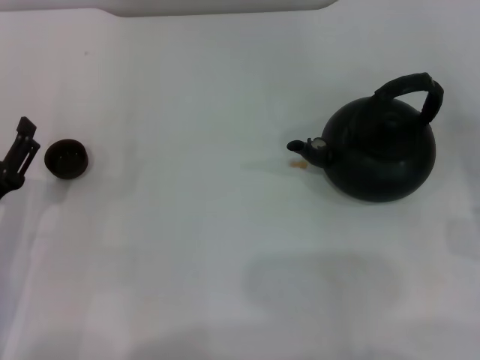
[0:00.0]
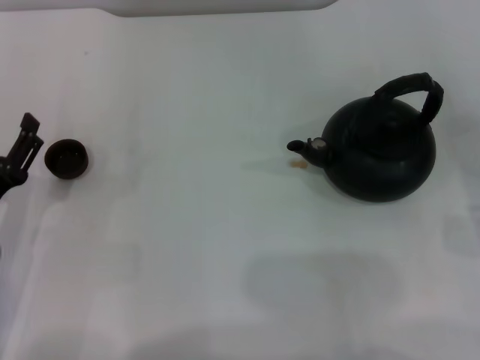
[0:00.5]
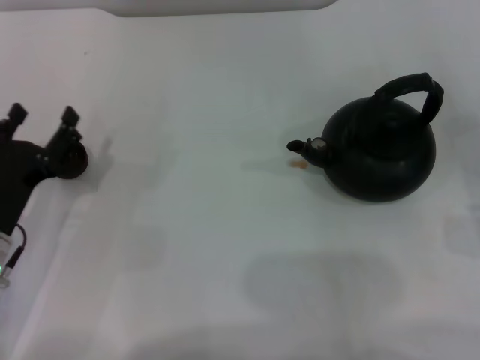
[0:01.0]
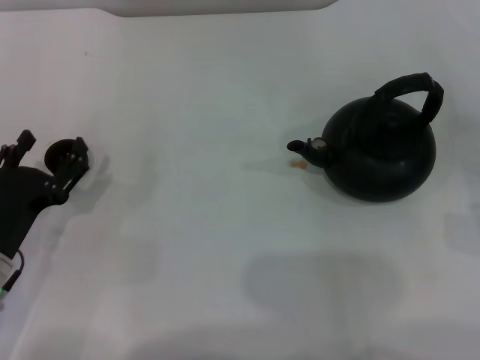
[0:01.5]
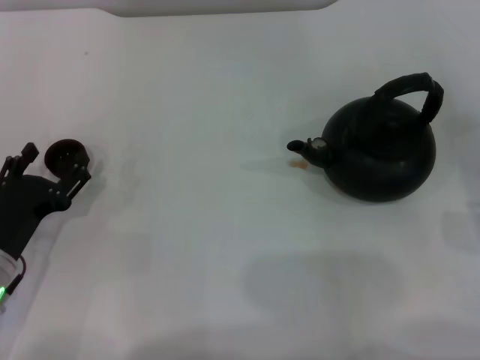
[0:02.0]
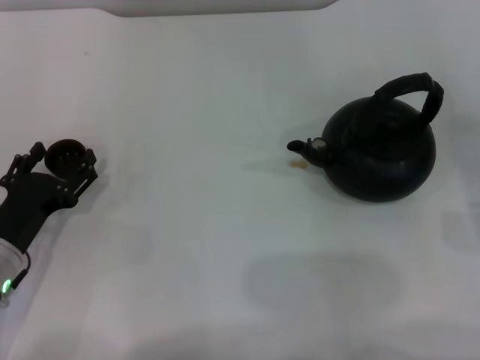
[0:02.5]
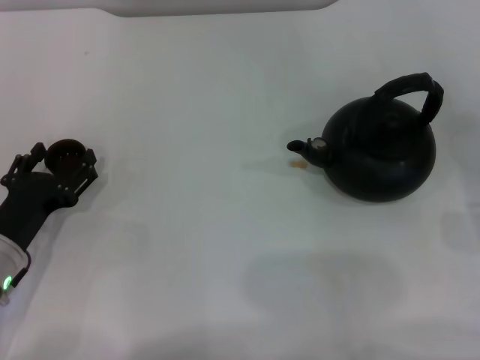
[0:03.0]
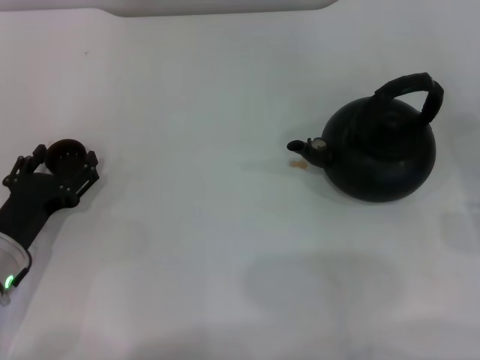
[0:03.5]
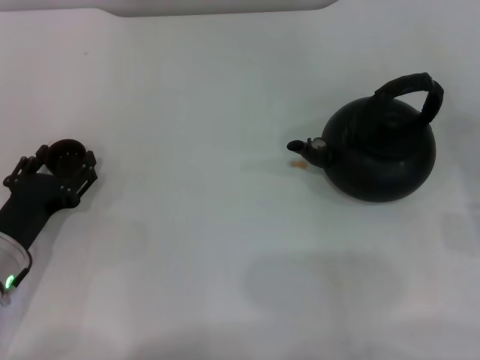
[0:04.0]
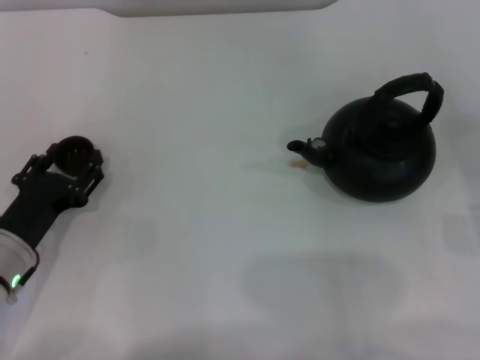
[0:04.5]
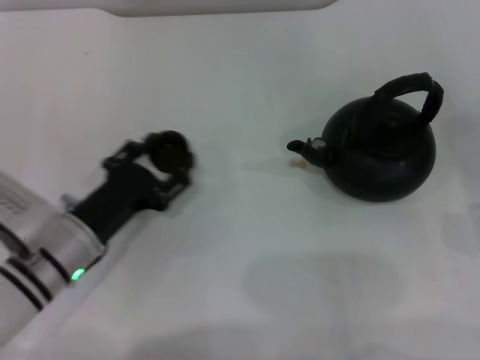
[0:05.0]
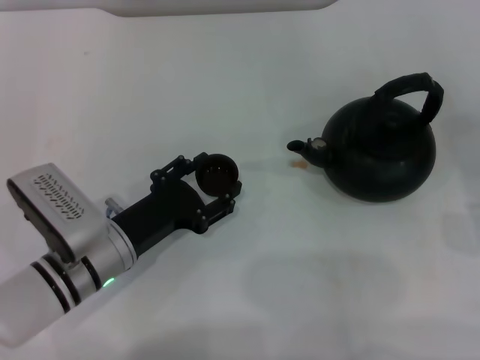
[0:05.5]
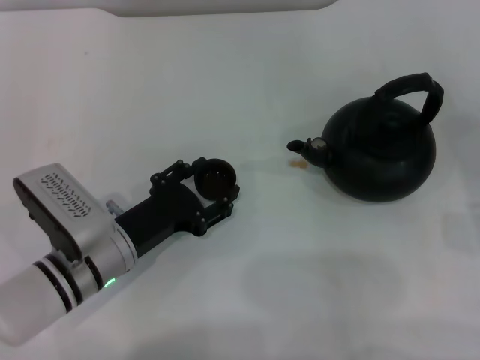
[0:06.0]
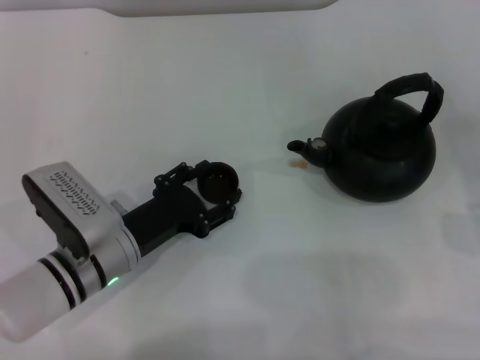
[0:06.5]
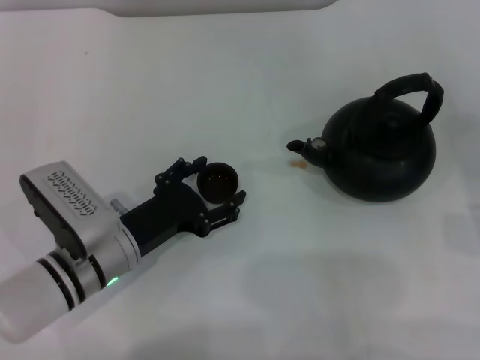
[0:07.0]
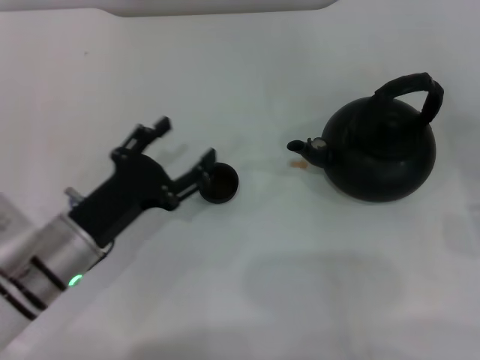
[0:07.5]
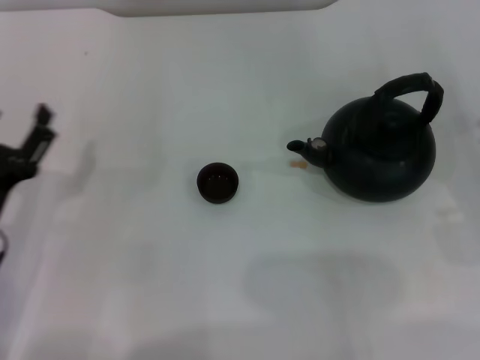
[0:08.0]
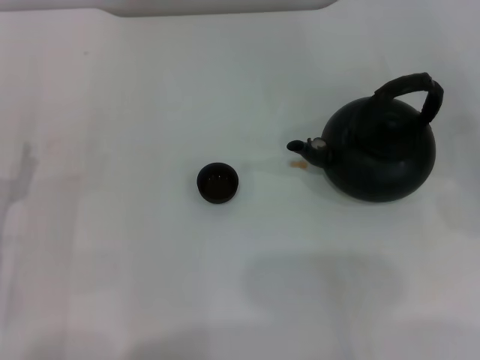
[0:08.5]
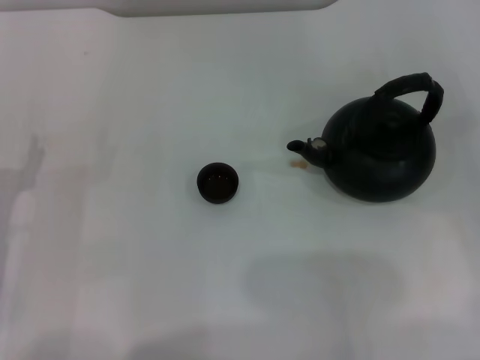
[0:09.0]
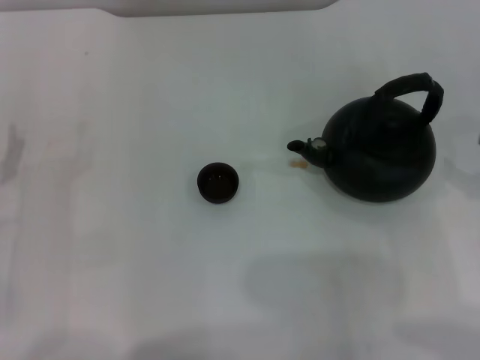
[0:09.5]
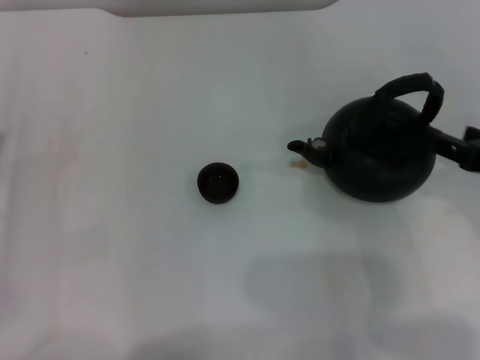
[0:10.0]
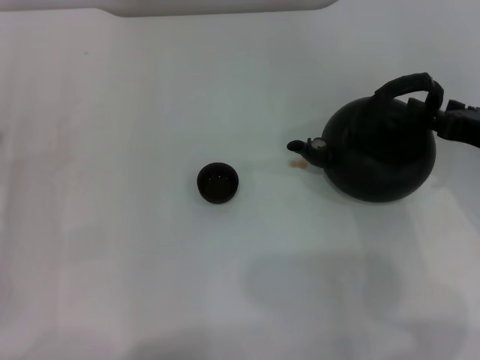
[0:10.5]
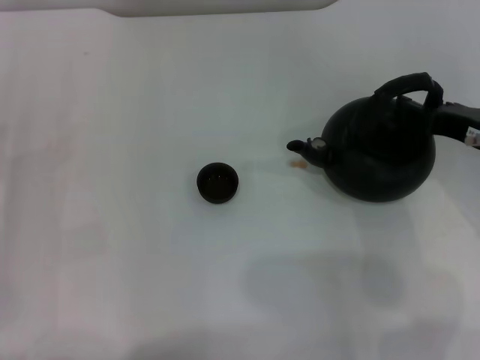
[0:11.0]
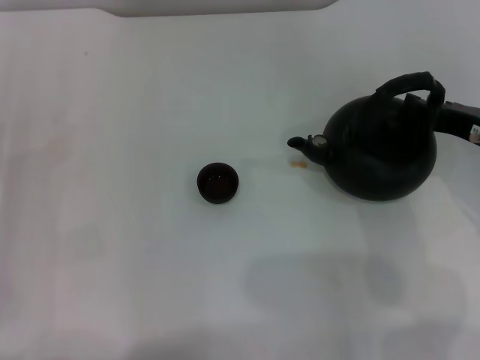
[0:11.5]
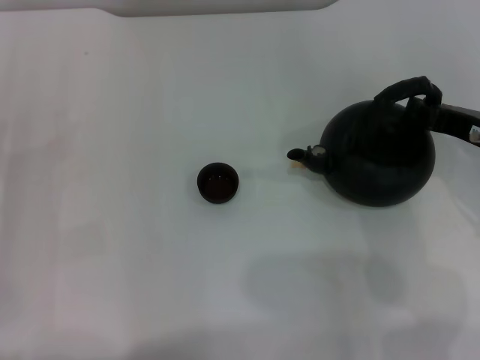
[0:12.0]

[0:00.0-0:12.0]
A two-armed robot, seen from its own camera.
Task of the whole recording: Grasp the handle of the teapot with one hand and pour tea into the teacup.
Step, 0:00.0 to 0:04.5: Pick up the teacup with the left gripper.
Step, 0:05.0 to 0:07.0: Place the teacup in the center of view with the left gripper.
0:00.0 to 0:02.0: The grippers stay close to where they were, moving slightly.
0:02.0 to 0:04.0: The left gripper closes up.
0:04.0 to 0:06.0: The left gripper shifts roughly 10 cm to the right, and closes.
0:06.0 to 0:08.0: The left gripper is displaced to the left by approximately 10 cm, and opens its fingers.
0:08.0 to 0:10.0: The right gripper shifts roughly 15 cm upward and to the left; the left gripper travels to the left by about 5 cm.
0:10.0 to 0:12.0: The right gripper travels forward by roughly 5 cm, and closes up.

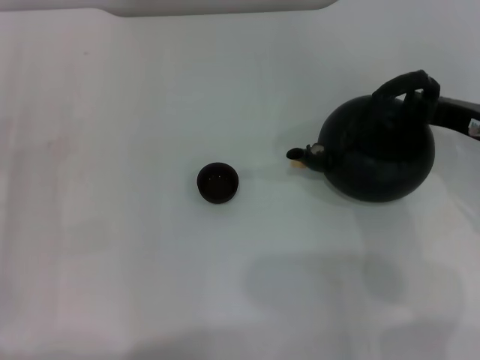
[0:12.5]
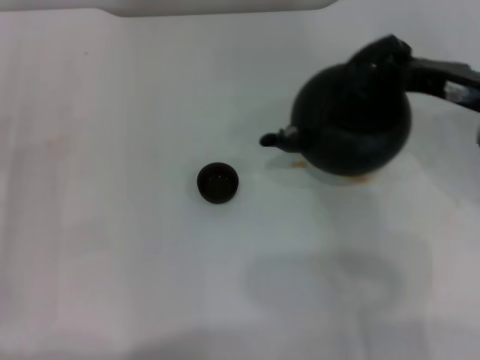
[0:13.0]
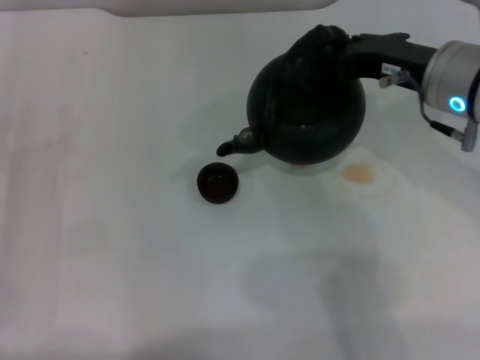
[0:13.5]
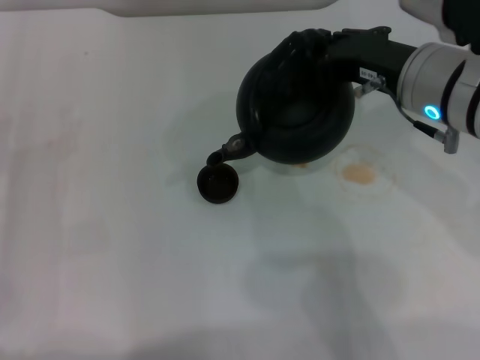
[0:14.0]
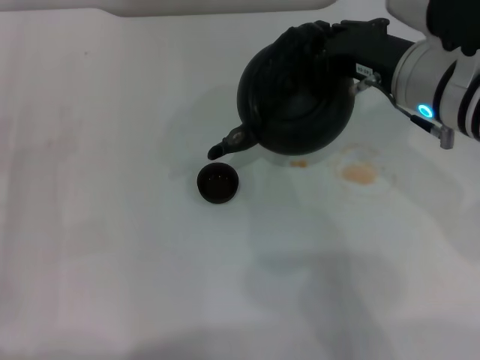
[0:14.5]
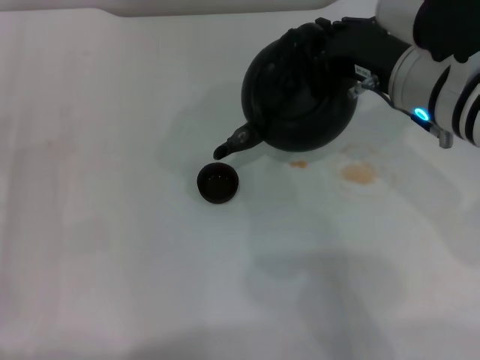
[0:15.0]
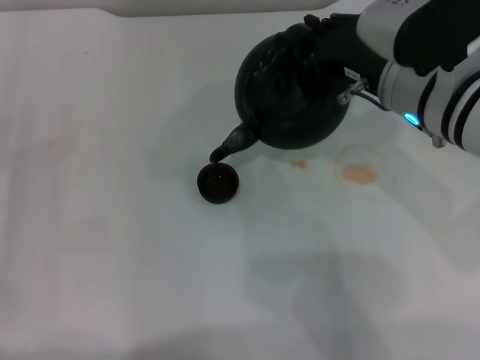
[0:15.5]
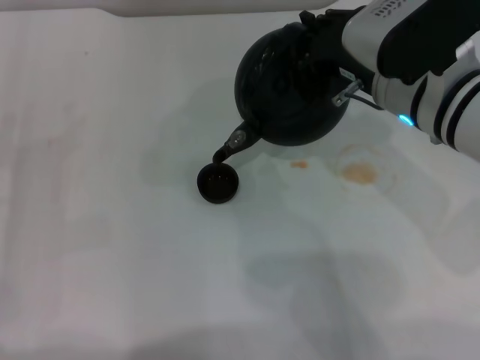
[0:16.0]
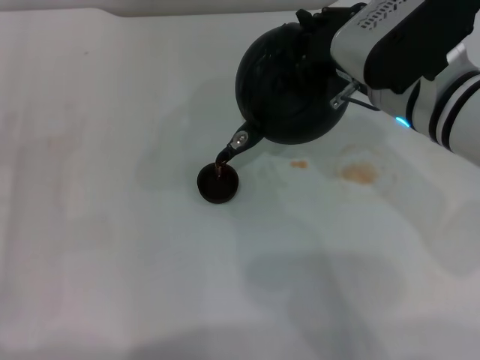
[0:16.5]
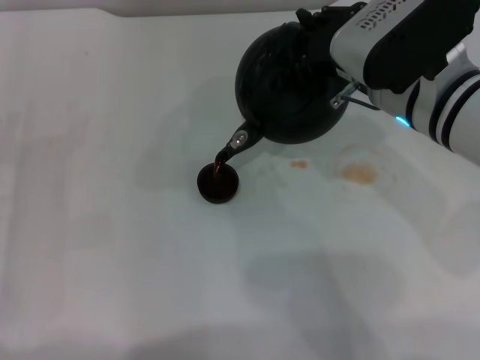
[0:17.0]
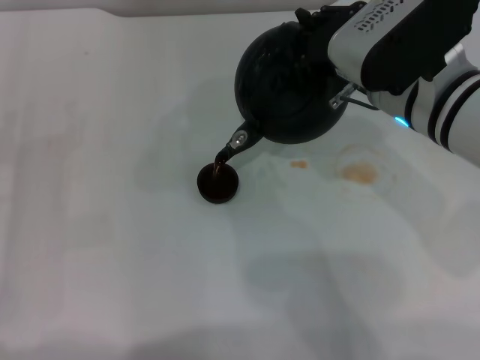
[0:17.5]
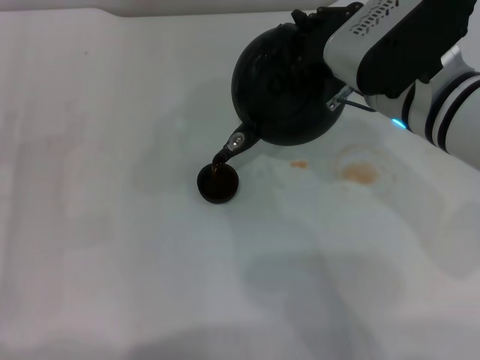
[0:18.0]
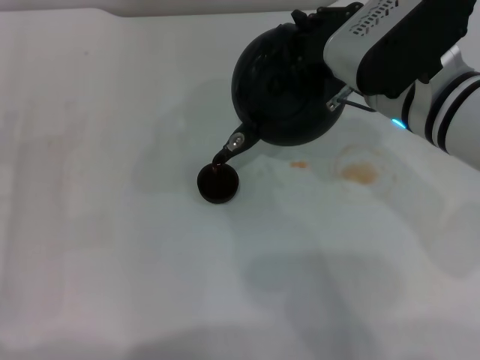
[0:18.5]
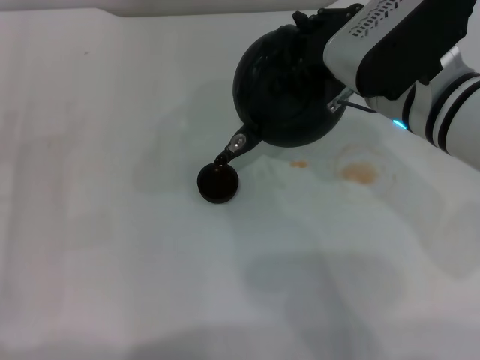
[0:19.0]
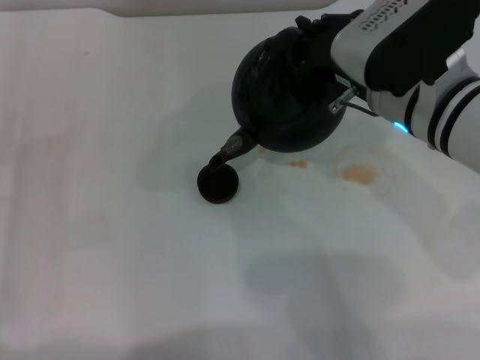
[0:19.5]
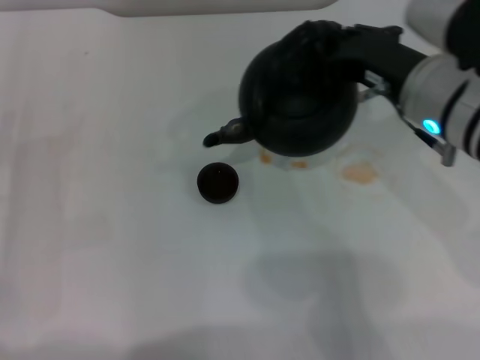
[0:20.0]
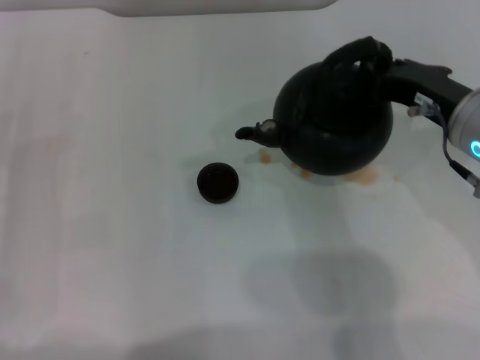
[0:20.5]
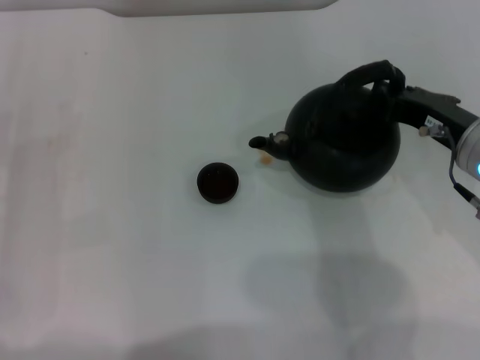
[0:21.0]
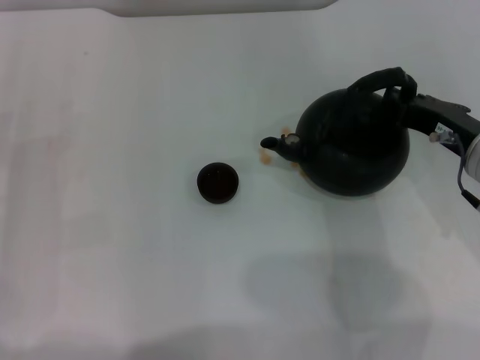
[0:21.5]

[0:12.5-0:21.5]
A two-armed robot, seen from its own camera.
Task of the whole recording: Grasp the handle of the teapot with one hand and pour tea into the teacup.
Step, 0:13.5 to 0:19.5: Pour tea into the teacup with the right gripper.
0:12.5 to 0:14.5: The right gripper travels to the left by approximately 10 cm.
0:14.5 to 0:17.0: The grippers stay close to where they were, moving slightly.
0:17.0 to 0:19.5: The two grippers keep their place.
0:19.5 to 0:21.5: The right gripper moves to the right and downward, about 10 cm.

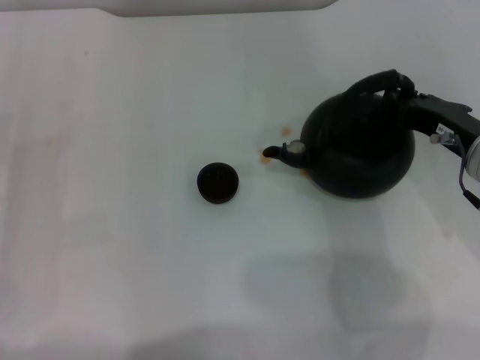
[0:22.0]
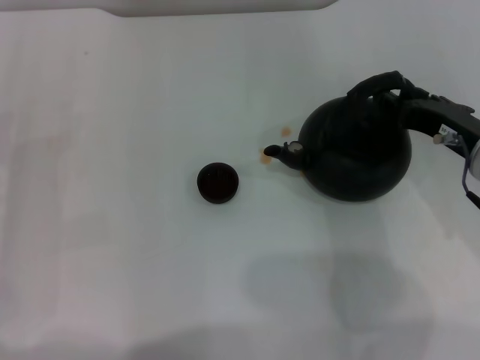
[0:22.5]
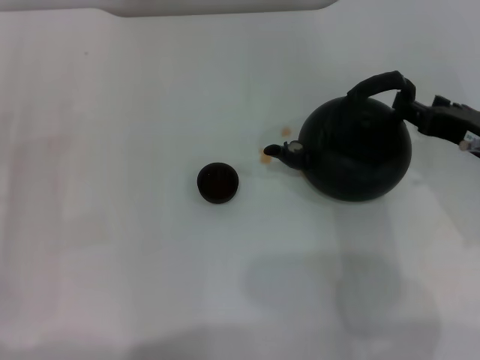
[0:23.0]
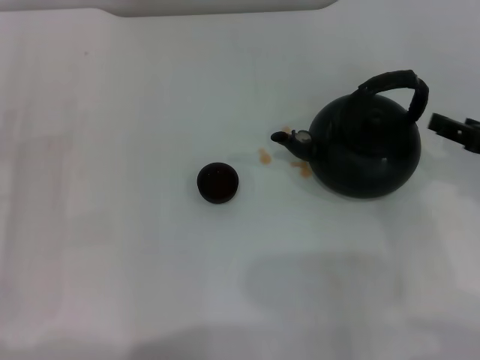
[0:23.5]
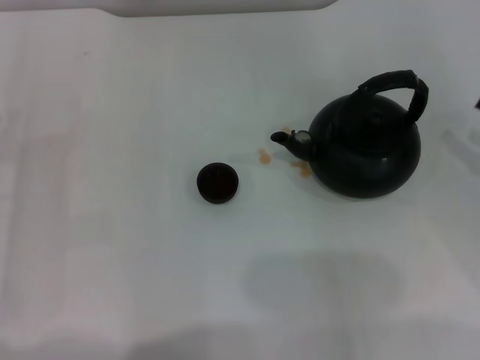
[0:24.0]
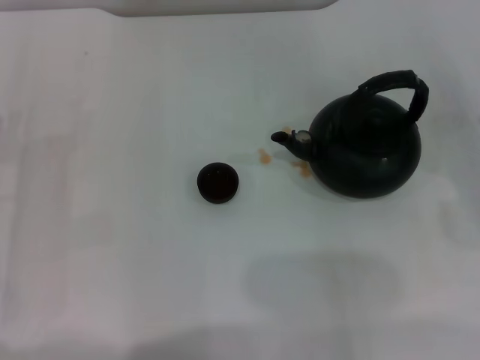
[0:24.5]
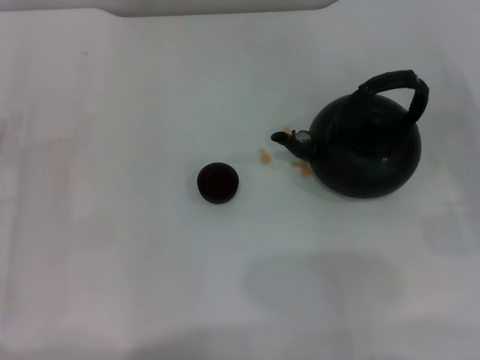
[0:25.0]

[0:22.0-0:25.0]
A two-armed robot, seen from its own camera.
Task of the whole recording: Grasp the handle of the teapot with one hand and pour tea into the teacup.
0:22.0 to 0:23.5: The right gripper shifts roughly 5 cm to the right, and opens up.
0:23.5 to 0:25.0: The right gripper goes some 10 cm downward and to the right.
